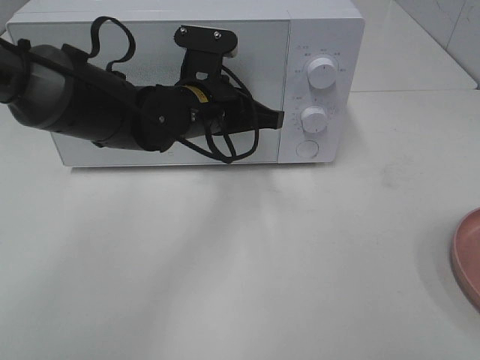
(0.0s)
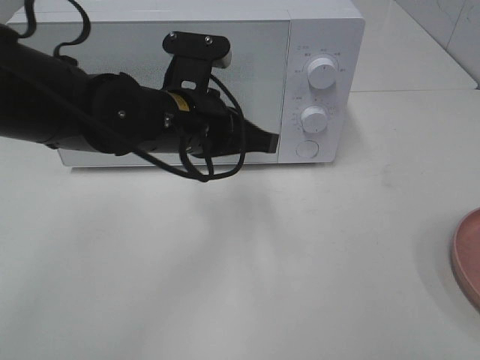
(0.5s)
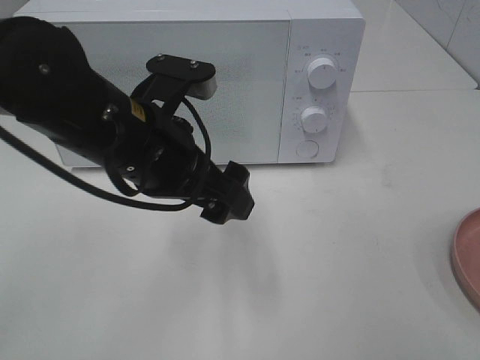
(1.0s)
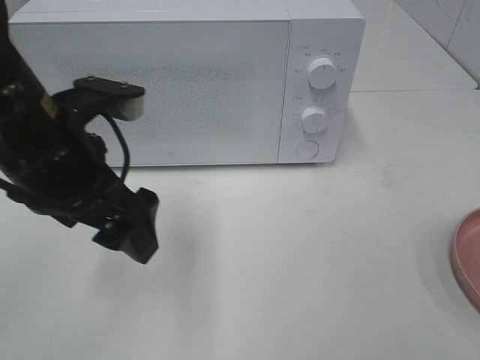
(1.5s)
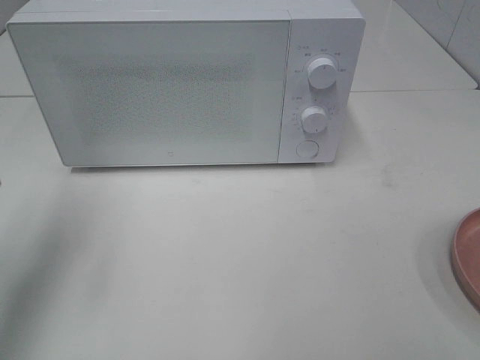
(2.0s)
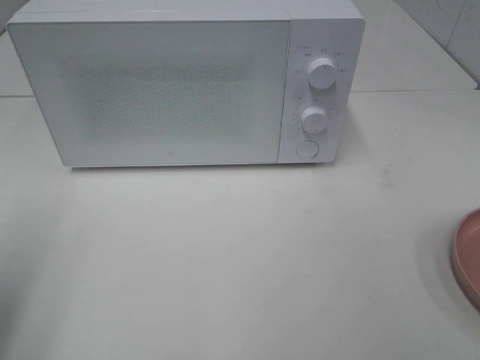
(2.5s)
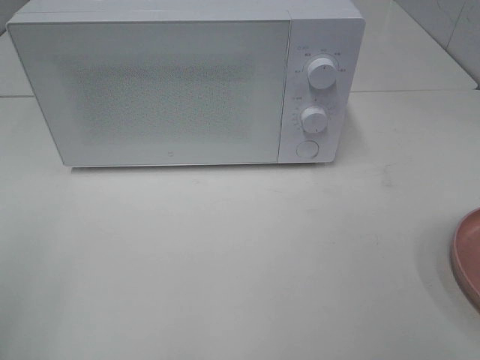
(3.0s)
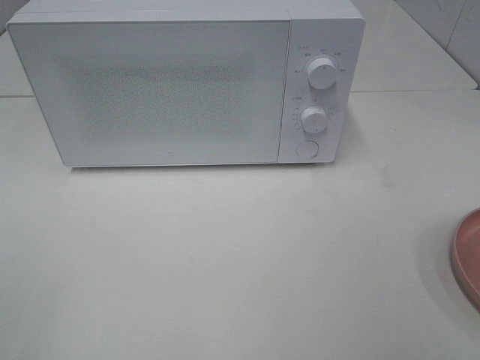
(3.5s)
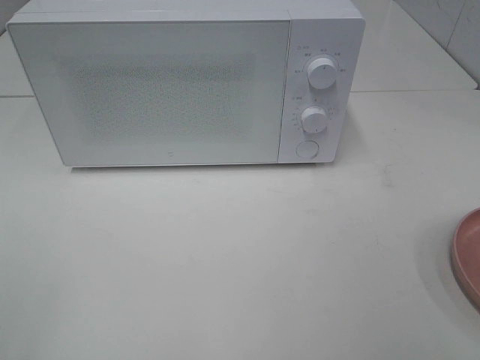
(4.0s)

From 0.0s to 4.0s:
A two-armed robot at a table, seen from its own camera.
Task of the whole recording: Heat the burger.
From 0.0s to 2.0s: The left gripper is displaced to the left, upward and backward by roughly 30 cm, and opens.
From 2.0s to 4.0s: The left gripper heads backward, covering roughly 25 cm.

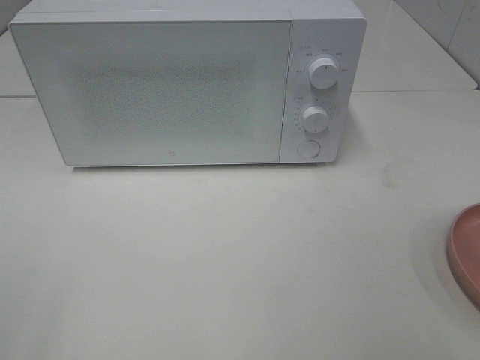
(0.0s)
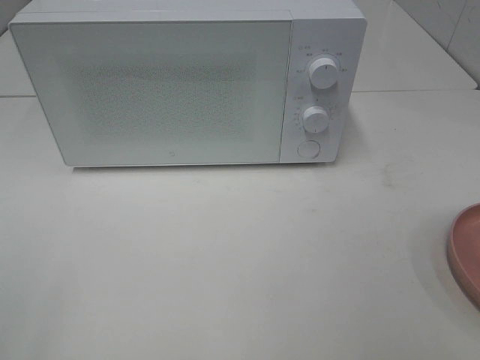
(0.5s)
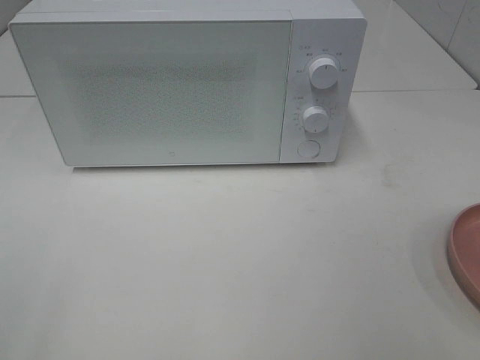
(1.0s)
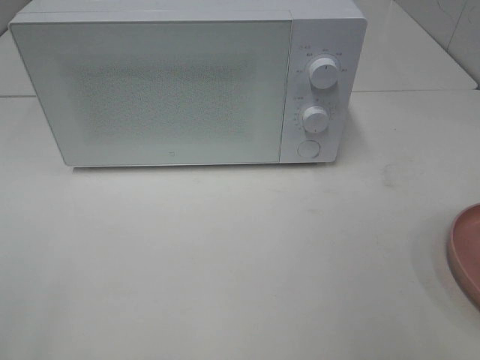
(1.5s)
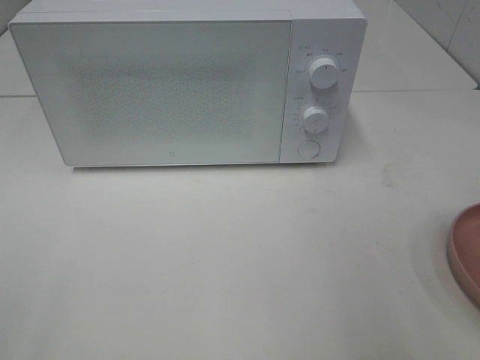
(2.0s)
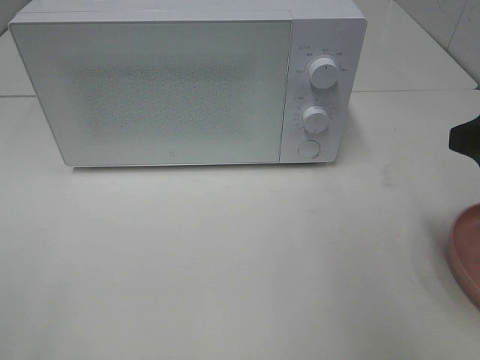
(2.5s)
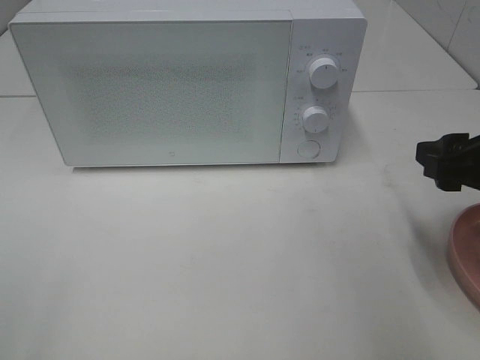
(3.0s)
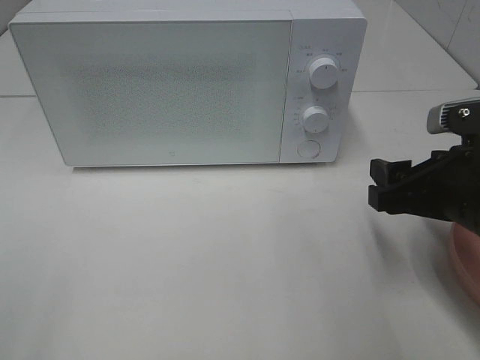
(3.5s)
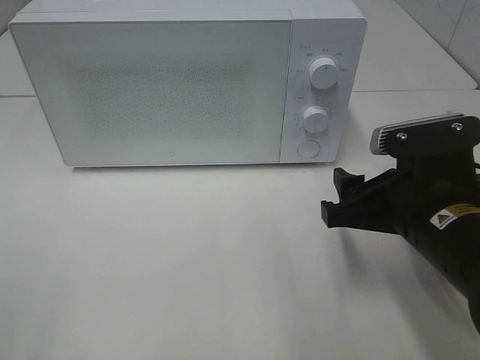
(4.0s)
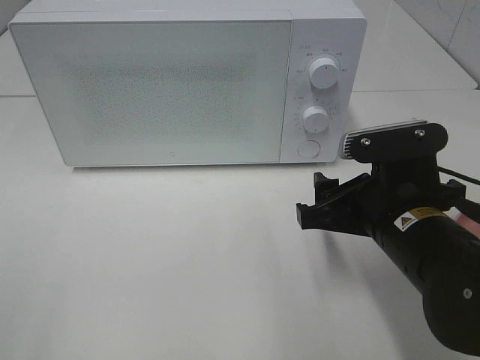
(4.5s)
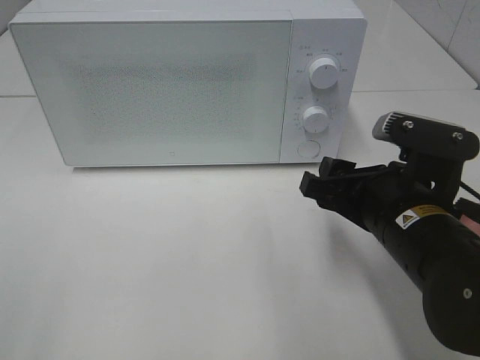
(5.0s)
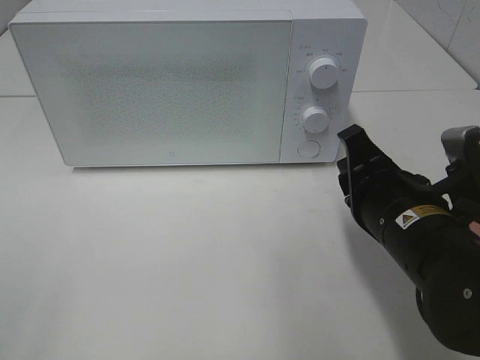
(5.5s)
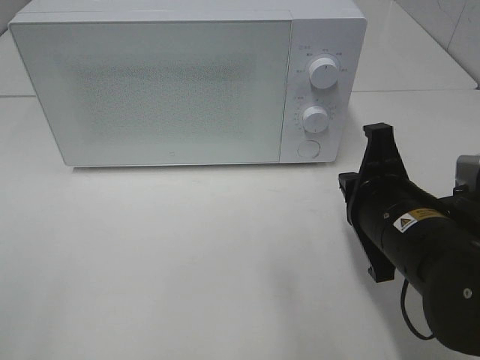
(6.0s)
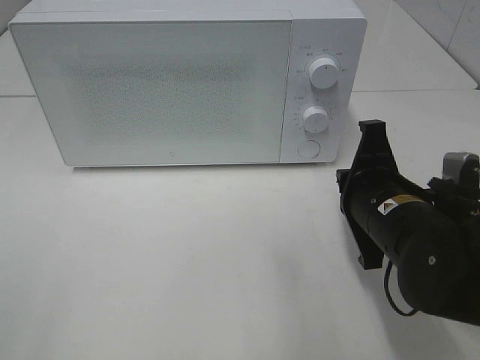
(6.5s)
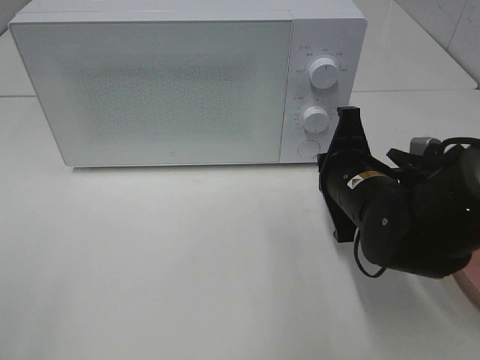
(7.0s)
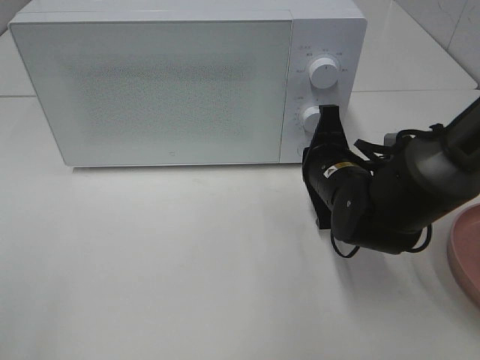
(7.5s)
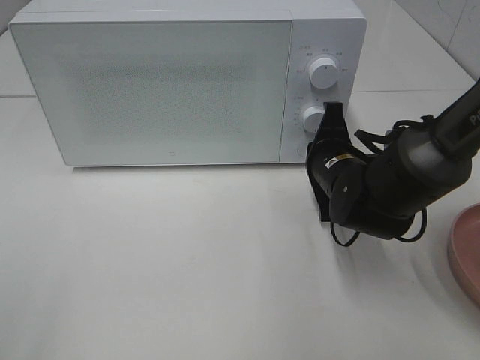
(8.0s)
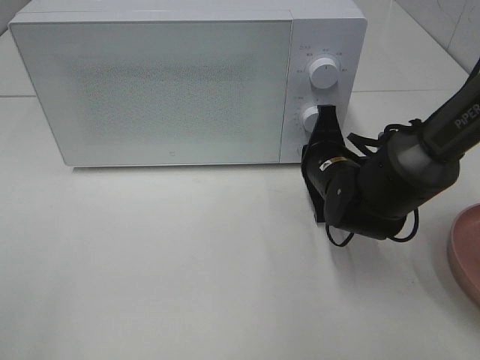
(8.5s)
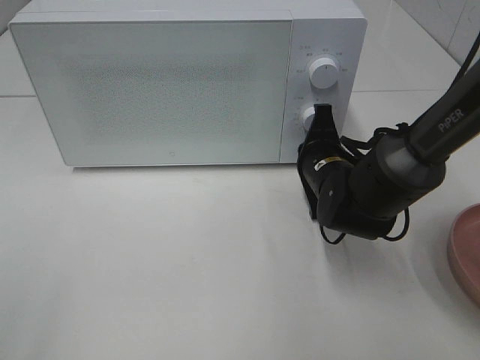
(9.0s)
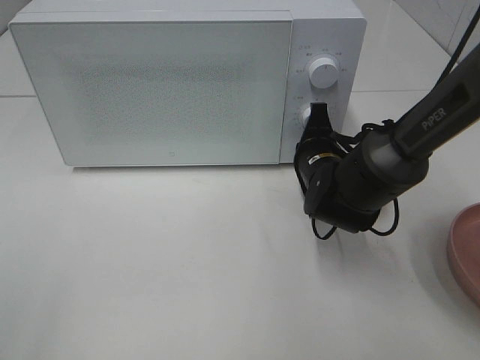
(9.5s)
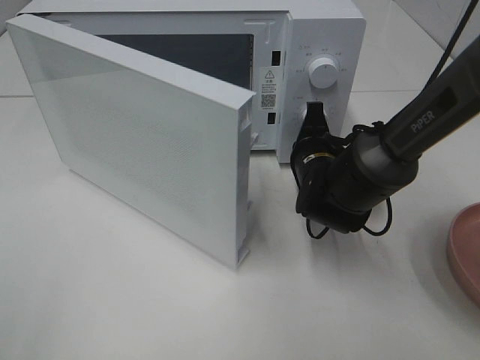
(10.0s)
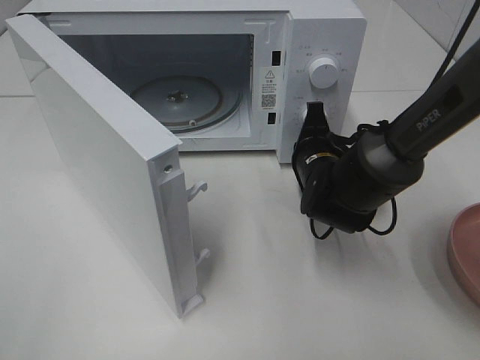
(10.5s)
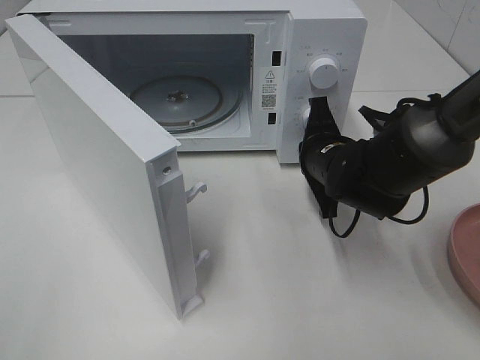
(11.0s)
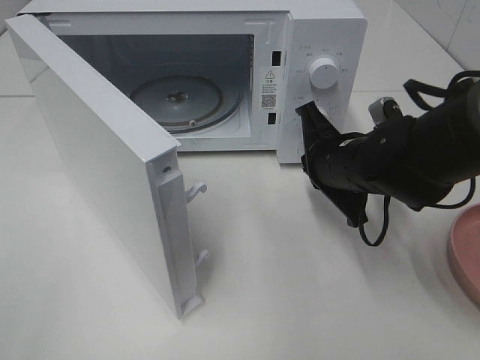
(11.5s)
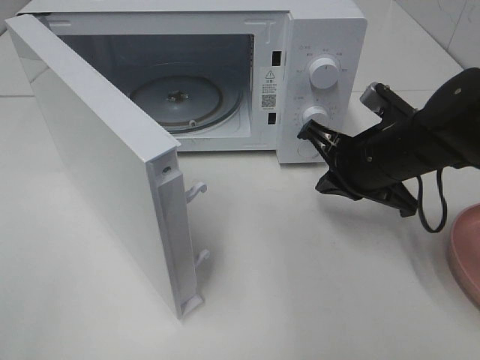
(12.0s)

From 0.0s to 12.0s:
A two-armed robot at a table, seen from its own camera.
Task of the whole recording: Heat the burger.
Step, from 0.0s to 11.0s: Right hand: press the switch.
From 2.0s to 4.0s: The right gripper moves downward, to the left and forward, approximately 15 cm.
From 4.0s to 6.0s: The right gripper closes up.
From 6.0s to 8.0s: The right gripper goes approximately 15 cm forward and downward.
From 10.0s to 12.0s: The right gripper moves upward, backward and to the right, approximately 10 cm.

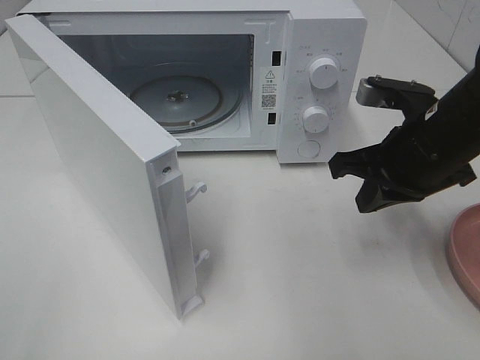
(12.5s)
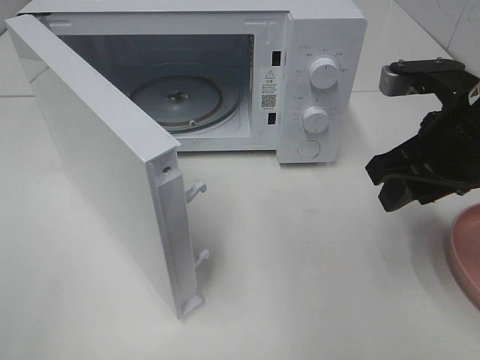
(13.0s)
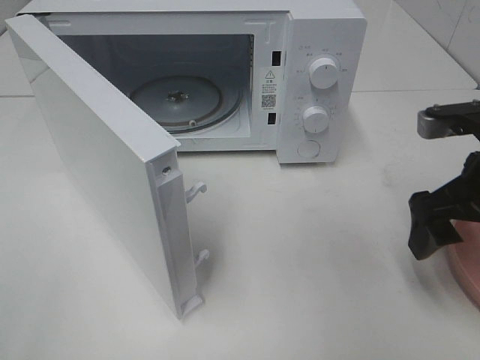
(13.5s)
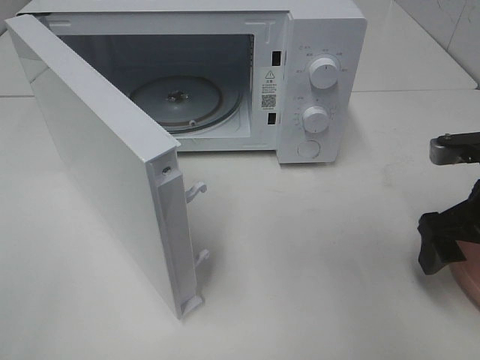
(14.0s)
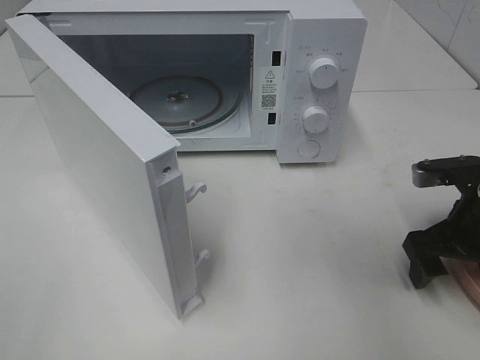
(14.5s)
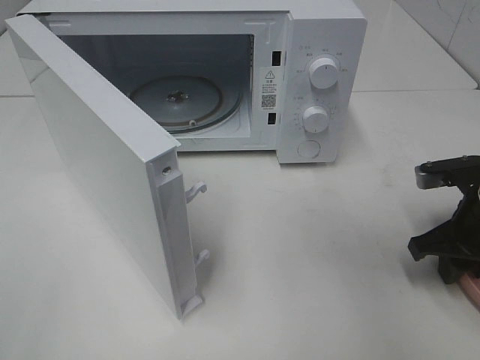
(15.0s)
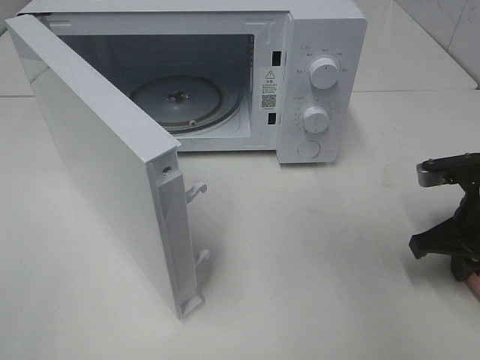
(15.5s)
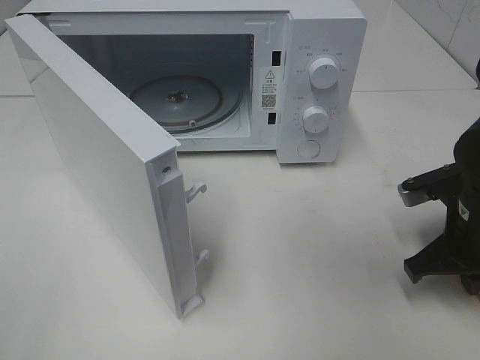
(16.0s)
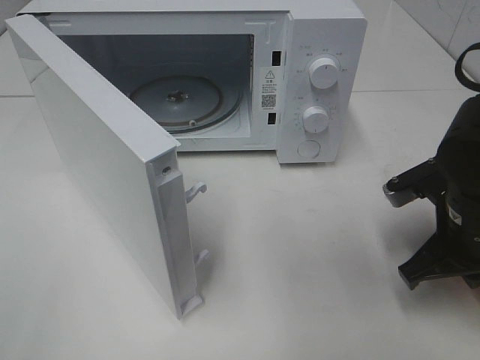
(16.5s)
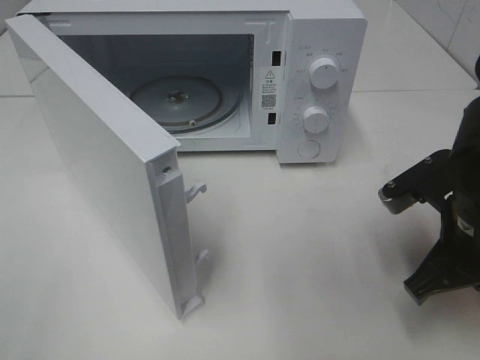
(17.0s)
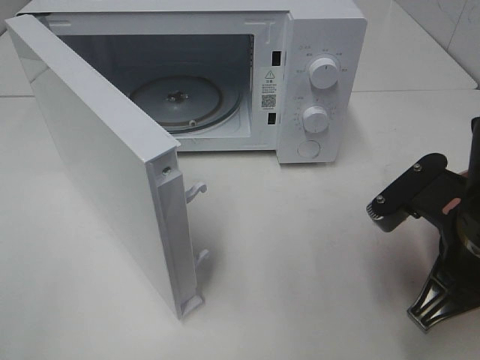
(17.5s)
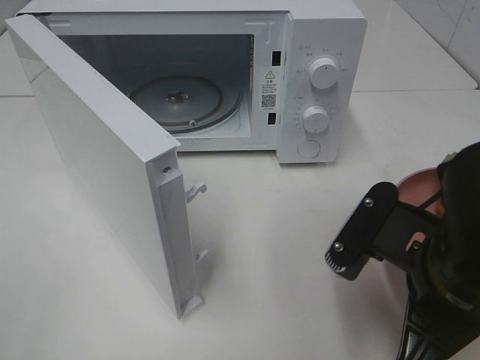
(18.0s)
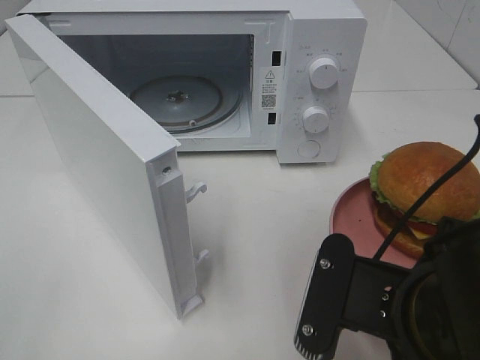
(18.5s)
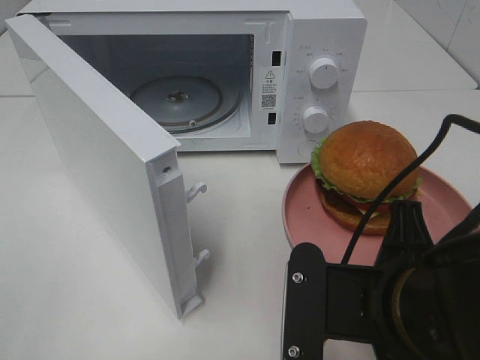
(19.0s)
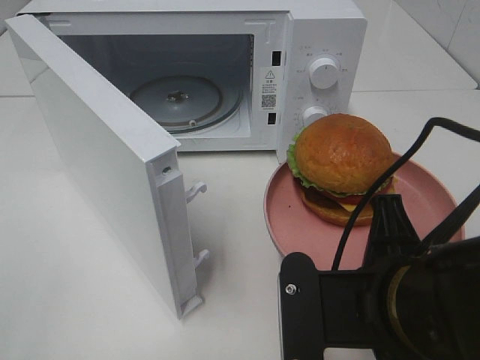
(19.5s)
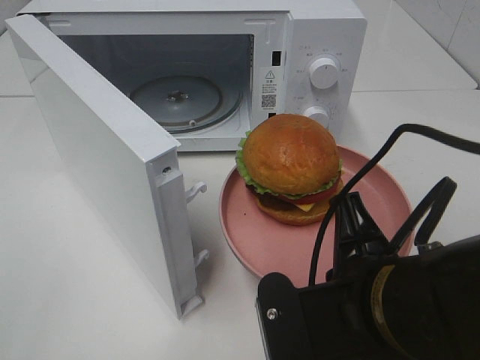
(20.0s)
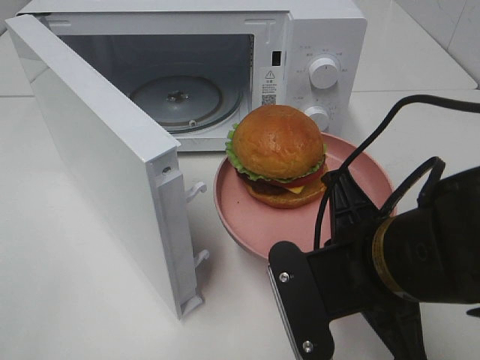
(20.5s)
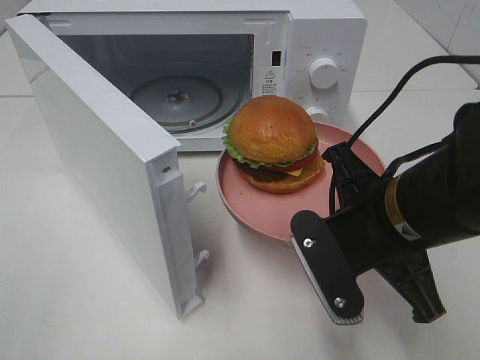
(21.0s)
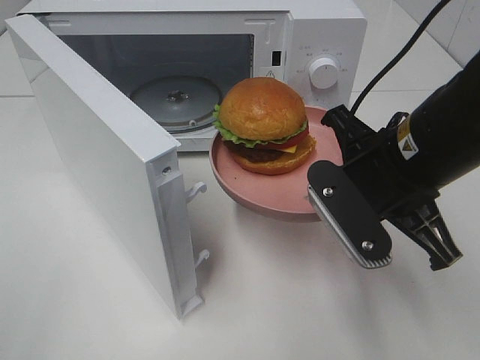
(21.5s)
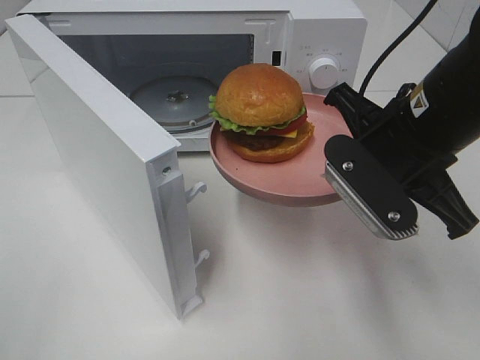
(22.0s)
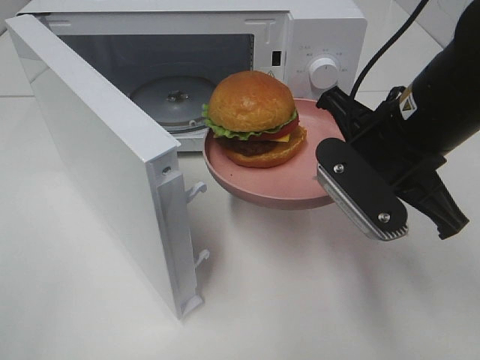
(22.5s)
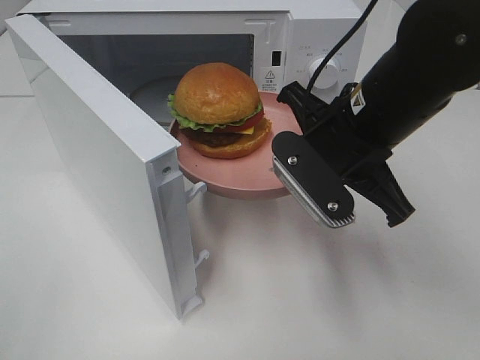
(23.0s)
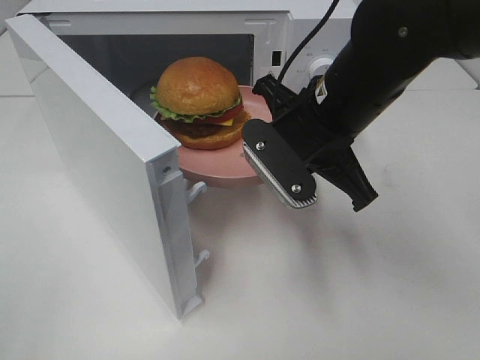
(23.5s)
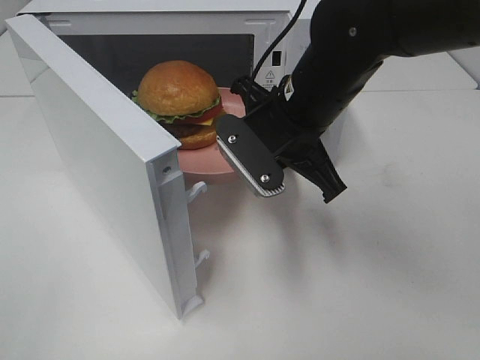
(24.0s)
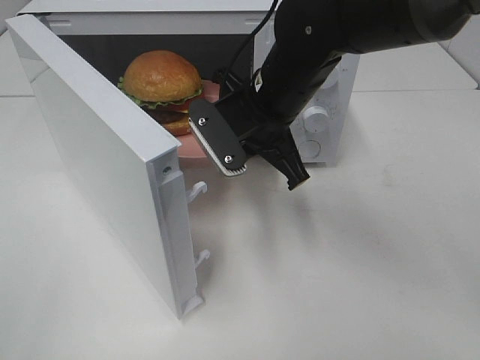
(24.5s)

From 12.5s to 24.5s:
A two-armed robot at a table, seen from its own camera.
Task of the whole recording: Heat the burger.
Step, from 12.5s to 15.0s: Right hand: grab the plate with the hamburger.
From 12.5s to 14.5s: The right gripper is displaced to the right and downward by about 10 cm, and opens.
From 14.5s to 16.5s: The right gripper ends up about 5 cm from where it was, and closes up.
From 16.5s to 18.5s: The right gripper goes about 15 cm backward and to the left.
From 20.5s to 22.5s: The right gripper travels forward and upward by about 10 cm.
From 22.5s to 24.5s: The right gripper travels to the left and forward by approximately 15 cm.
